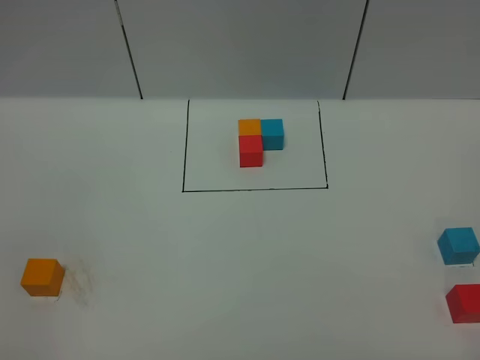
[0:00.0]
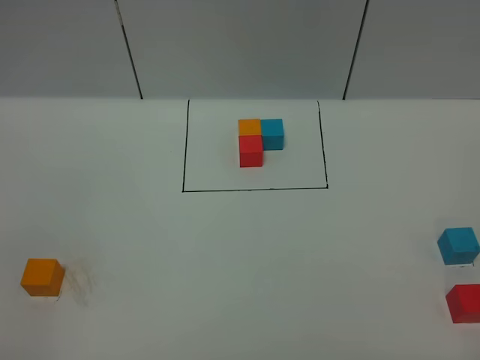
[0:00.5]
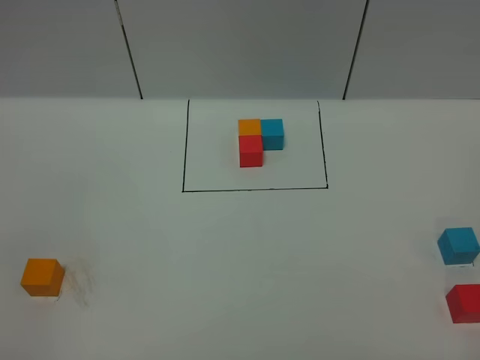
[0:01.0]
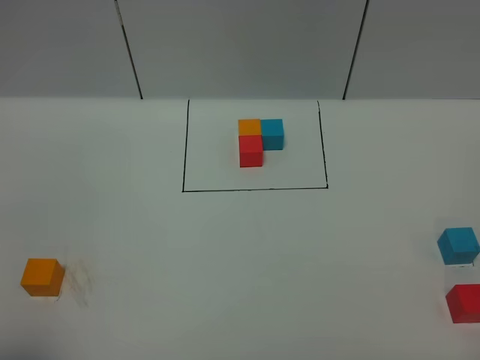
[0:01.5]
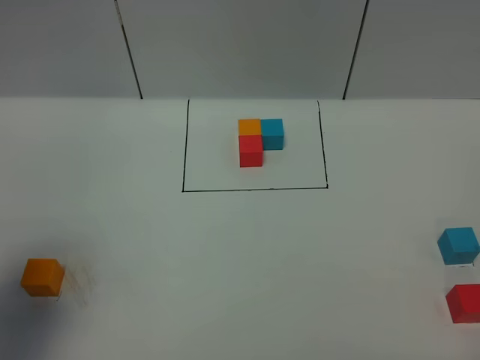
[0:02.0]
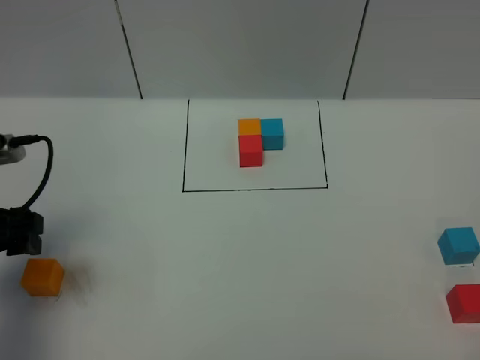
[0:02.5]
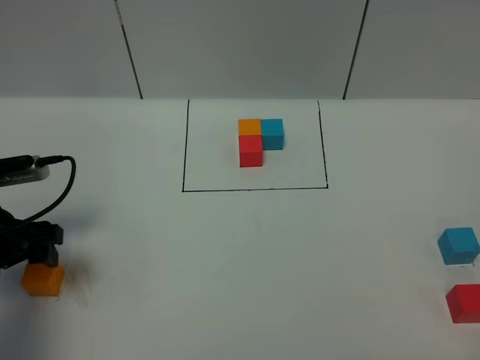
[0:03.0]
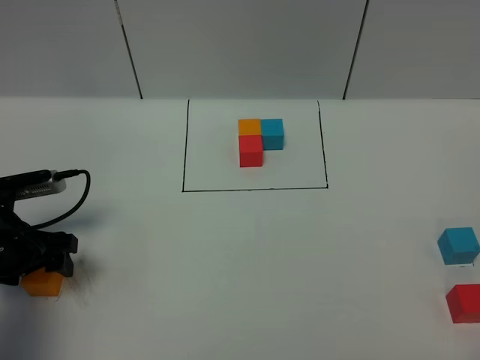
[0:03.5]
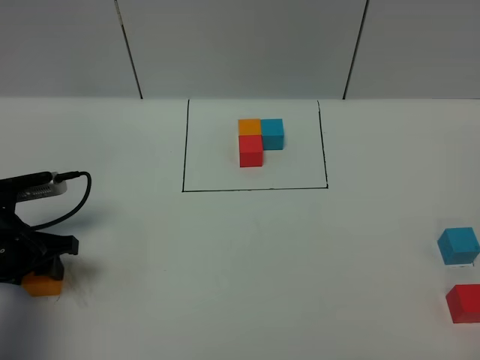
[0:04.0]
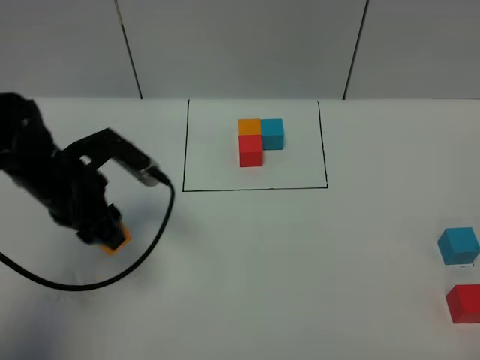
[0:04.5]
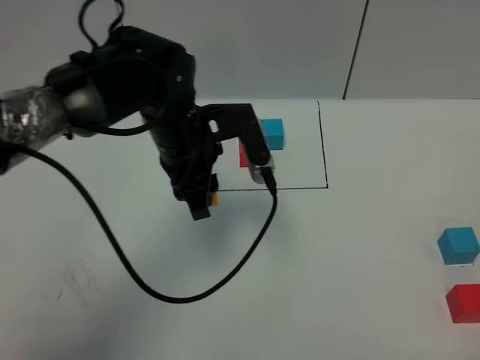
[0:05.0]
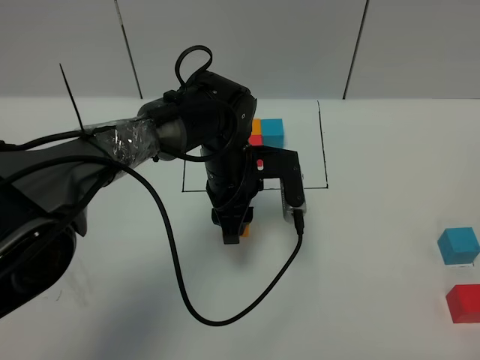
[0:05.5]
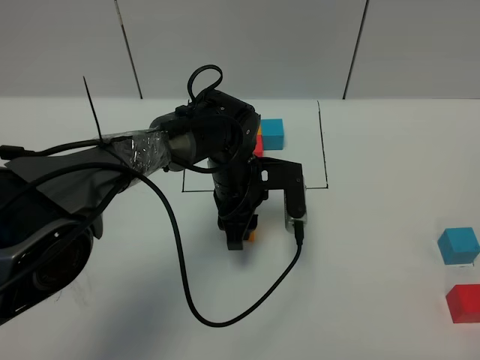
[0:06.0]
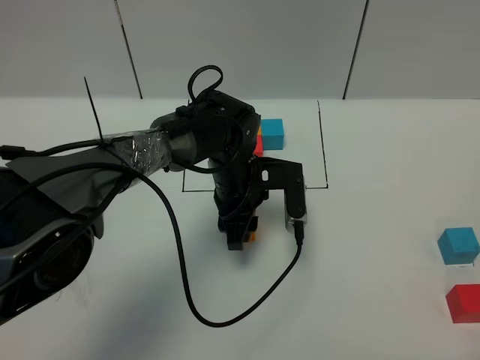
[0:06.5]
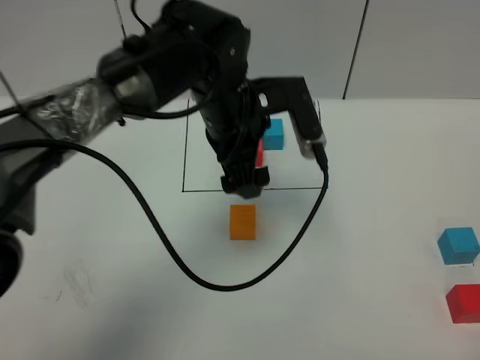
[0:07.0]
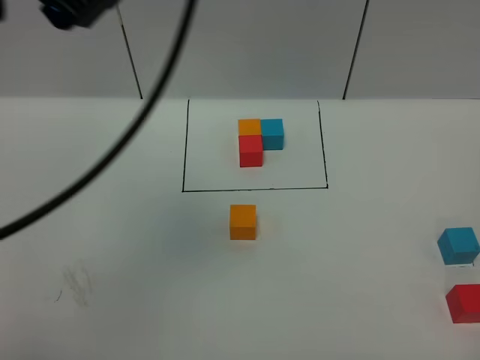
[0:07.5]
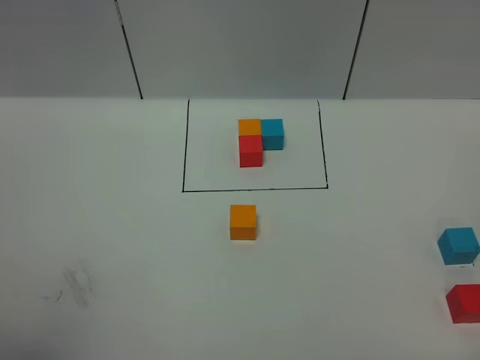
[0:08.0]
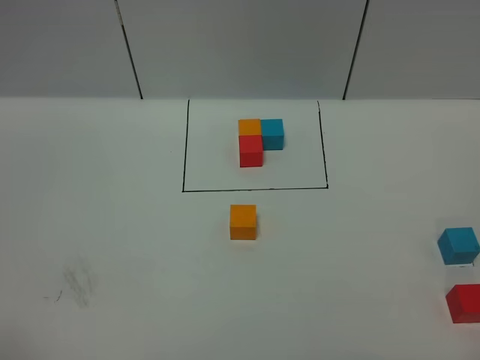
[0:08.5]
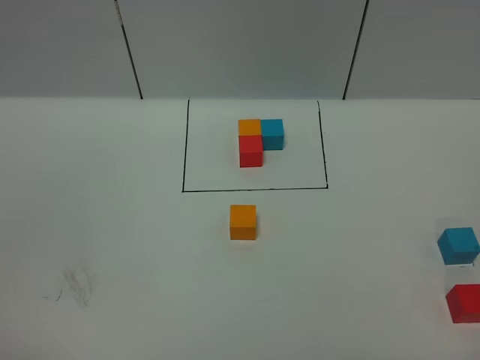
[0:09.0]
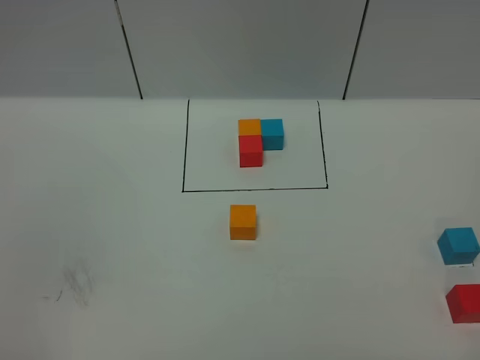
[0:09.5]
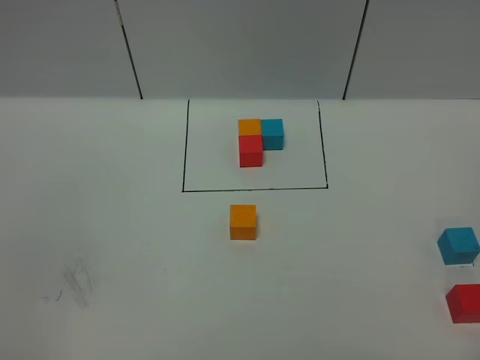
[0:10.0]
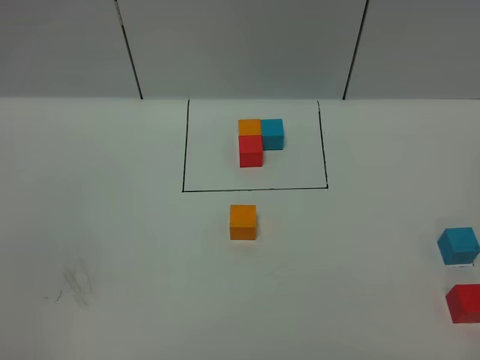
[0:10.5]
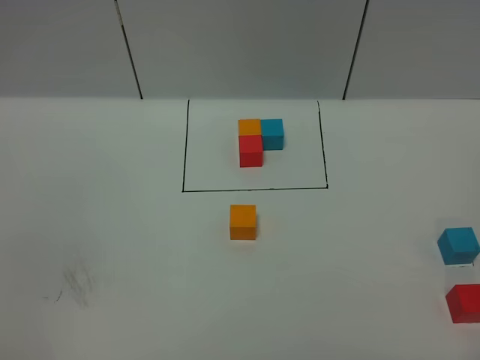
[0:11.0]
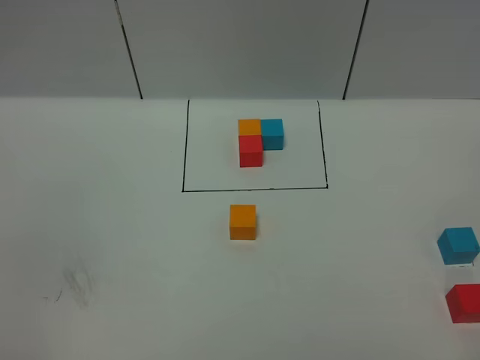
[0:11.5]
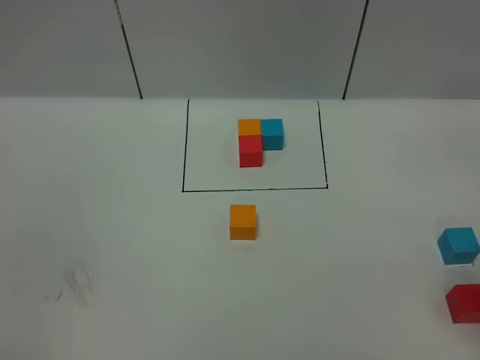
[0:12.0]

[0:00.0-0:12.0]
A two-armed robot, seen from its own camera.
Task of the whole recording: According to the building block template in front, assemble the scattered blocks together.
Step, 0:02.5 to 0:06.5: Put the orange cube in the center of the table.
0:00.0 to 0:02.0: The left gripper goes approximately 20 cm forward, and opens up.
0:02.0 to 0:04.0: The left gripper heads downward and forward, covering roughly 20 cm, and closes up.
0:04.0 to 0:06.0: The left gripper goes approximately 30 cm to the right.
0:06.0 to 0:08.0: The left gripper travels upward, backward and to the left by approximately 60 cm, and opens.
0:08.0 to 0:10.0: The left gripper goes approximately 25 cm downward.

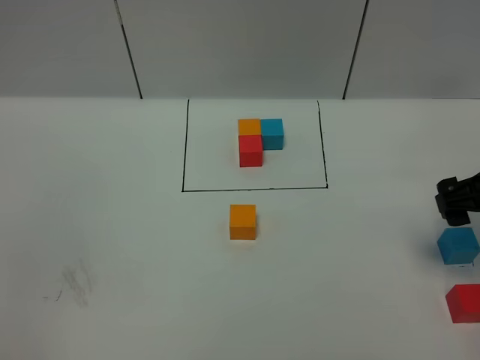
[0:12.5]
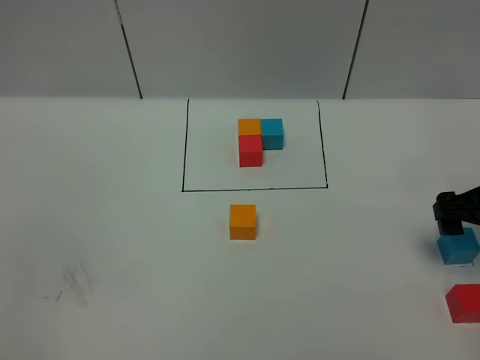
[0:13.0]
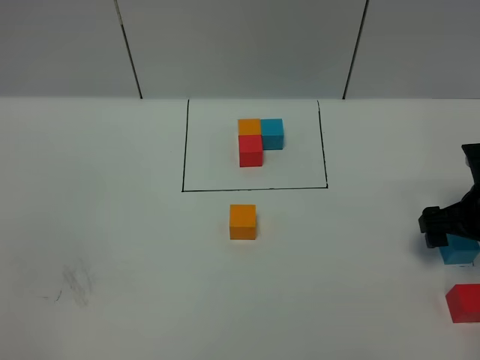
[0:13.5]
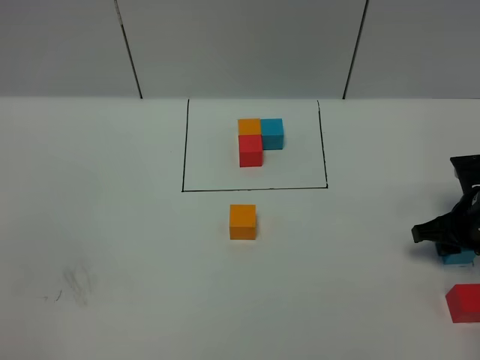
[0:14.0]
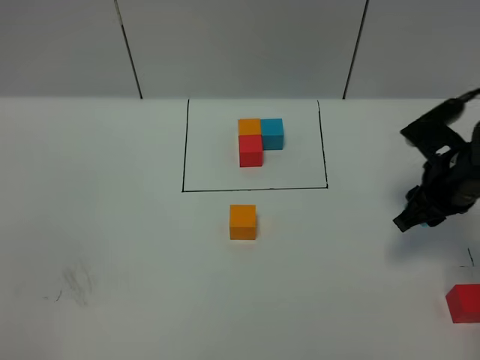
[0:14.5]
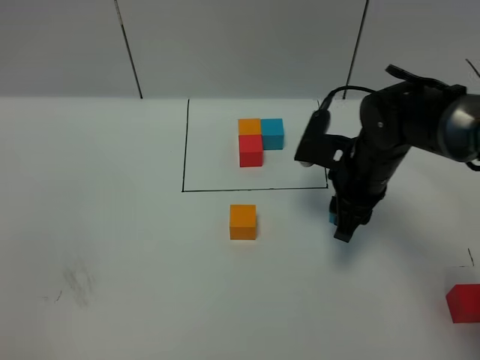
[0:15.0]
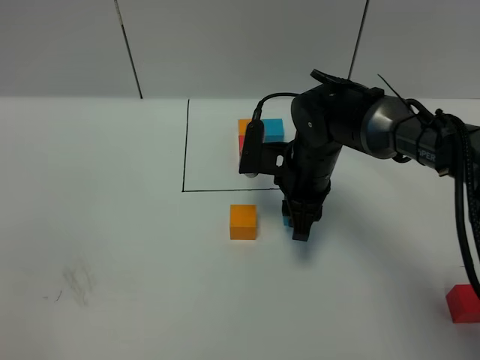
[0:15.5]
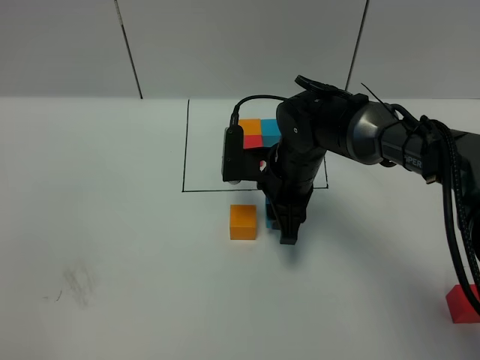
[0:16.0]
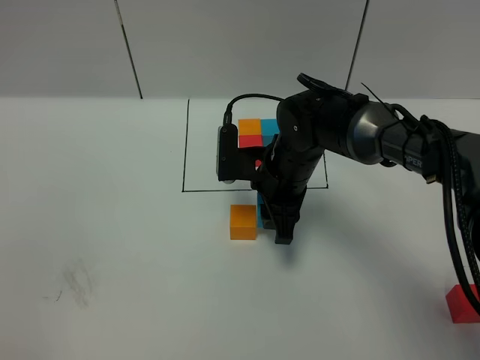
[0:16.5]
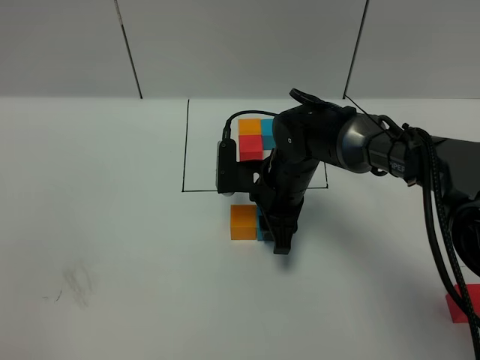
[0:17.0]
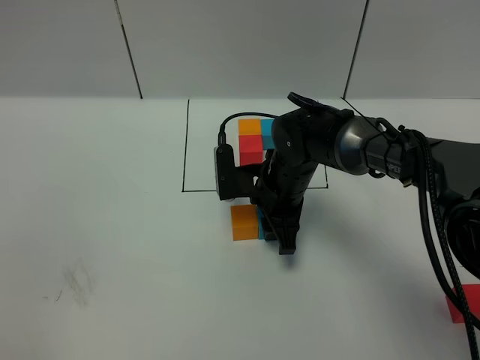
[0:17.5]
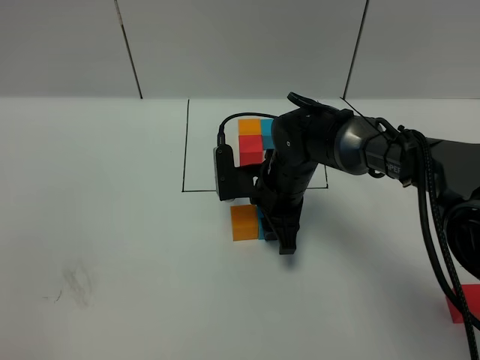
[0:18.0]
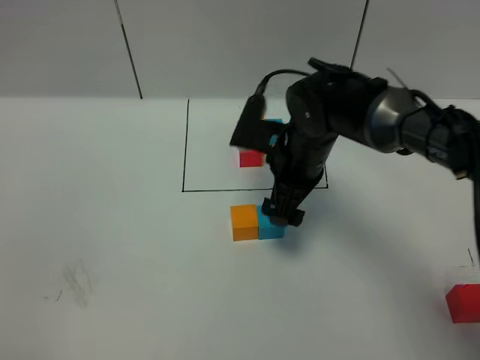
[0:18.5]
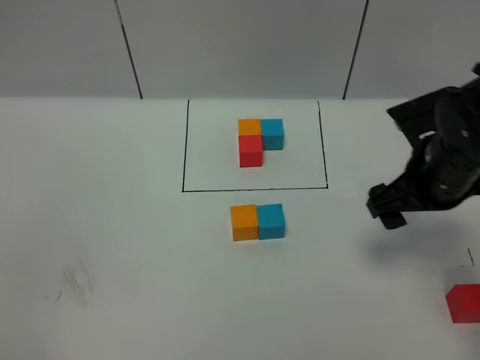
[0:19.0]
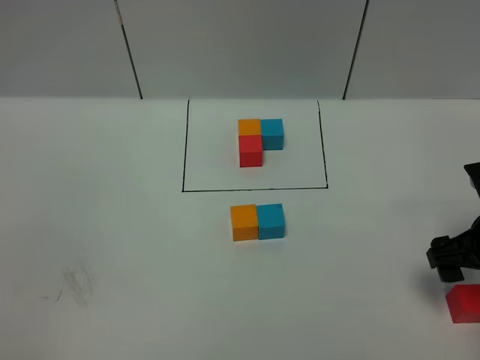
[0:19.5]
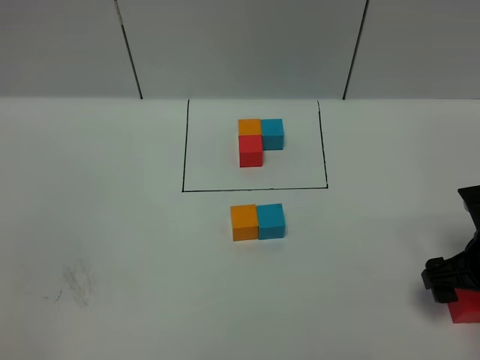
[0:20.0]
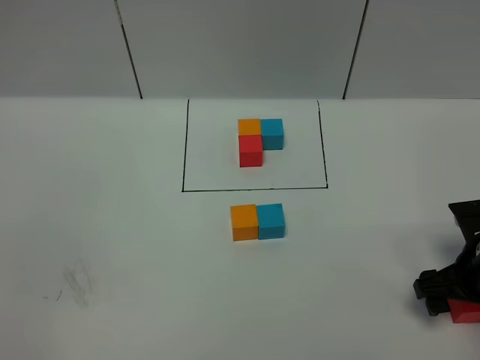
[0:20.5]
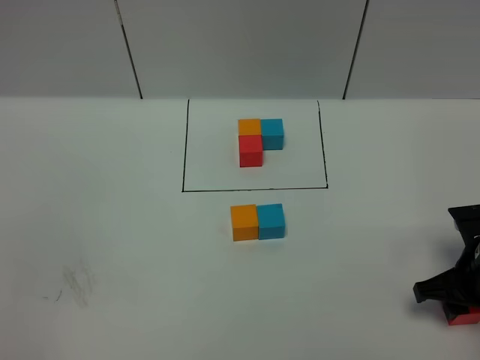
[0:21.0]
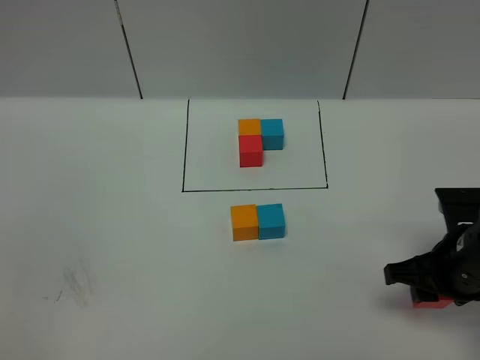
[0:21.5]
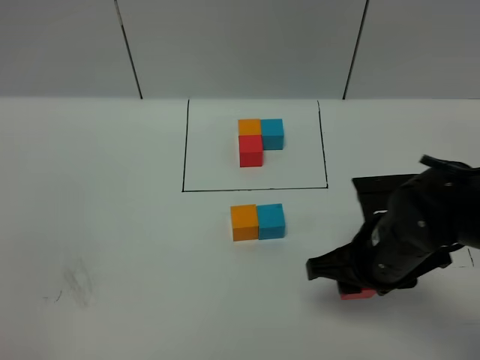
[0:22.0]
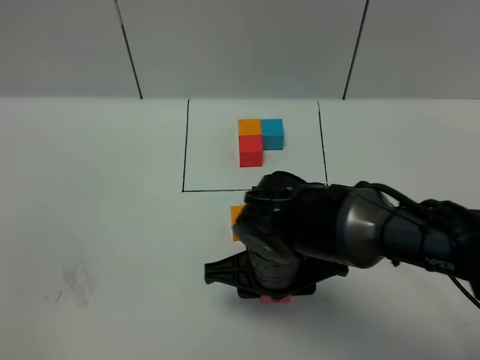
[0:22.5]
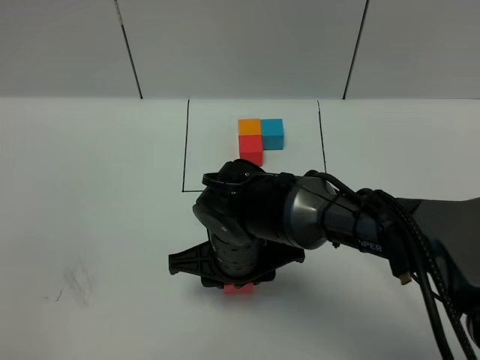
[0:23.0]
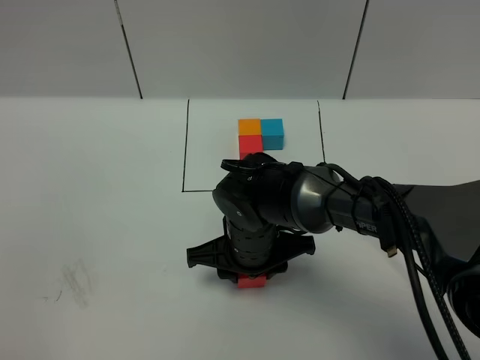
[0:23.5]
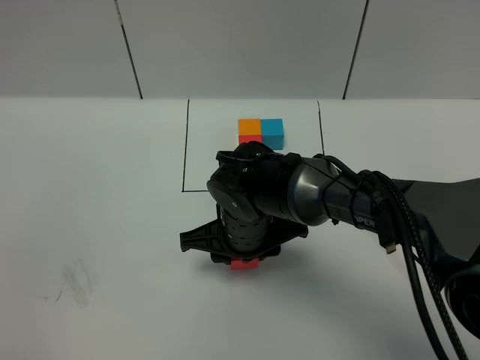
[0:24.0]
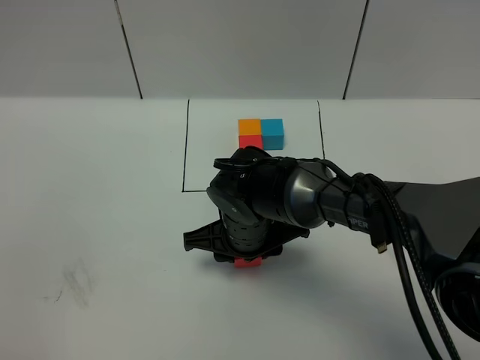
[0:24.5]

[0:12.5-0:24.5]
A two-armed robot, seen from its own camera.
Task of the whole recording: According to the building block template in front, assemble the scattered blocks together.
Step, 0:12.5 to 0:18.0: Put the blue cube on the right of the orange cube.
0:12.5 to 0:14.5: The right gripper travels downward by roughly 5 cm, and closes.
0:14.5 to 0:16.5: The right gripper goes about 20 cm to the left.
0:16.5 to 0:18.5: The right gripper opens its fingers.
0:18.5 to 0:20.5: The right gripper is displaced to the right and backward by some 25 cm.
0:20.5 to 0:22.5: The right gripper heads to the left, covering about 25 cm, and closes its fingers.
0:22.5 to 0:24.5: The right gripper shifts some 5 cm forward.

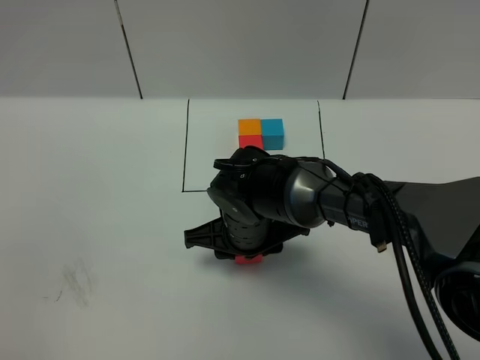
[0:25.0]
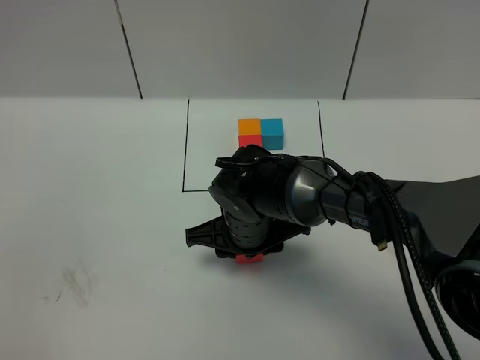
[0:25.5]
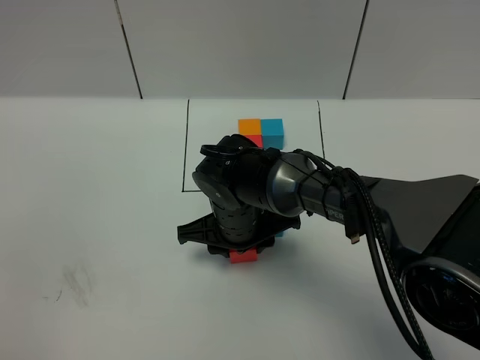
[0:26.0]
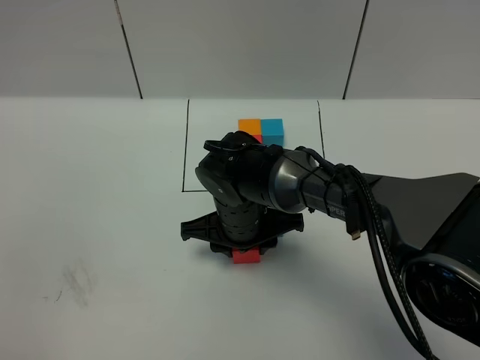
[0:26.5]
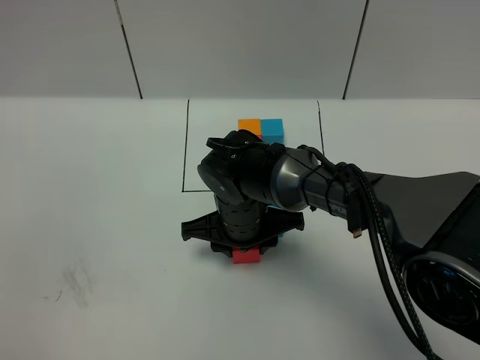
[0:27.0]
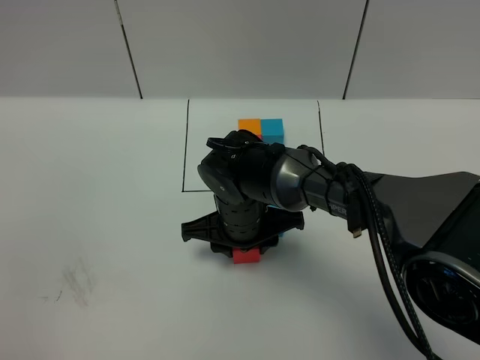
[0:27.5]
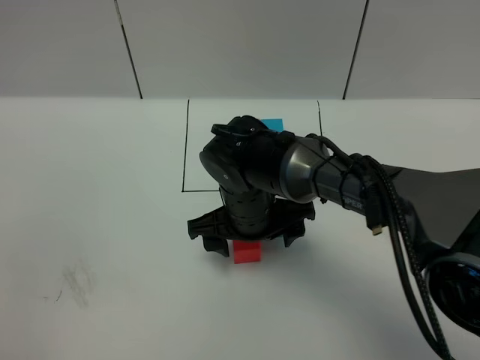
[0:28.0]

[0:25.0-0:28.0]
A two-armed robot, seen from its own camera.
Task of the whole recording: According to the building block template in front, assemble the scattered blocks together.
Step, 0:25.0 to 0:27.5: Put the red cube in the front of the orange cube.
0:25.0 to 0:26.5: The grippers move only a little.
0:26.5 to 0:28.0: The right gripper opens up.
